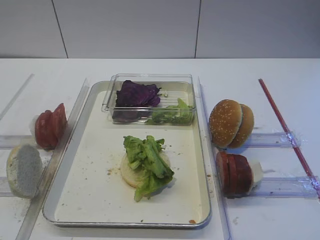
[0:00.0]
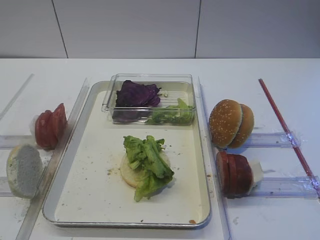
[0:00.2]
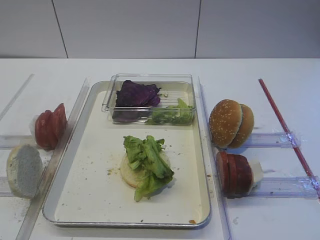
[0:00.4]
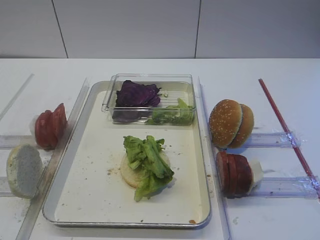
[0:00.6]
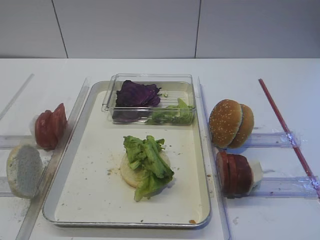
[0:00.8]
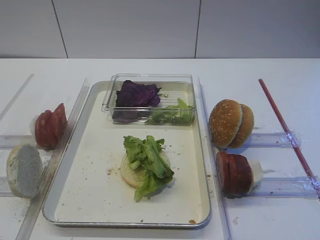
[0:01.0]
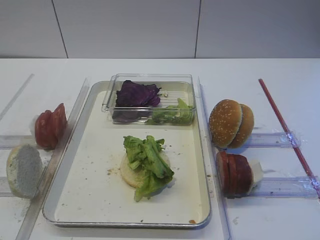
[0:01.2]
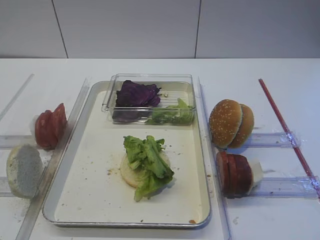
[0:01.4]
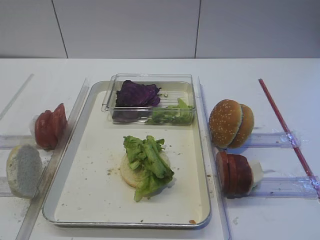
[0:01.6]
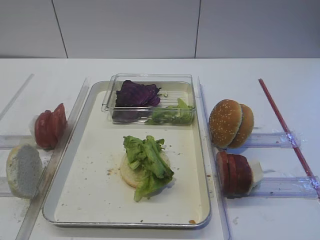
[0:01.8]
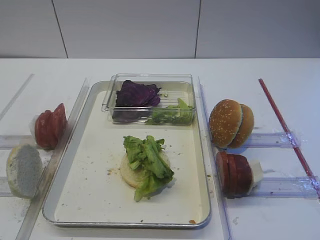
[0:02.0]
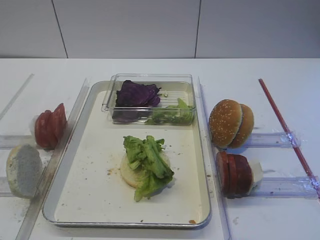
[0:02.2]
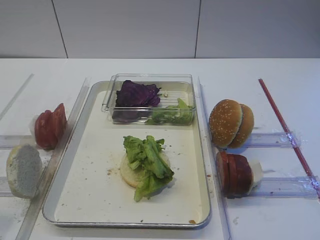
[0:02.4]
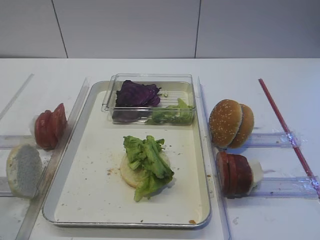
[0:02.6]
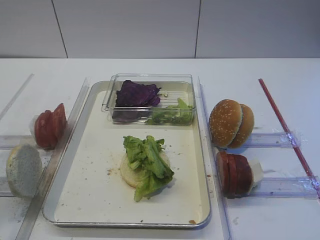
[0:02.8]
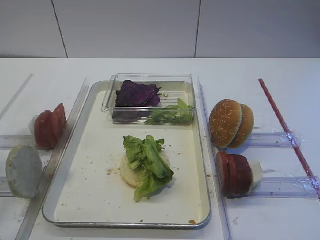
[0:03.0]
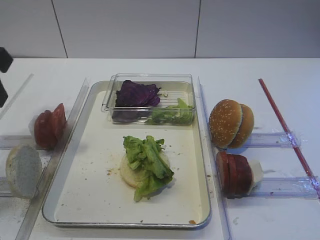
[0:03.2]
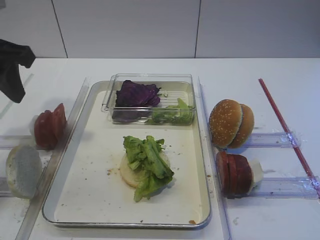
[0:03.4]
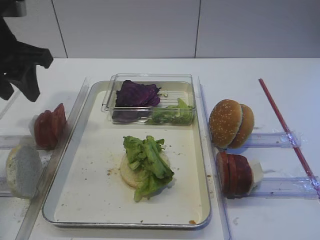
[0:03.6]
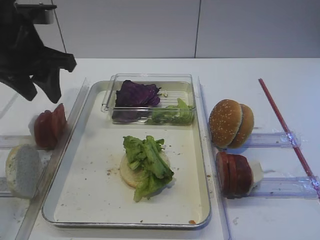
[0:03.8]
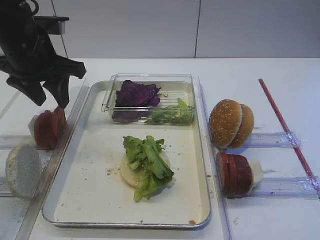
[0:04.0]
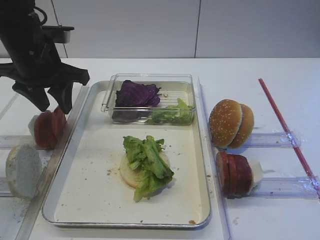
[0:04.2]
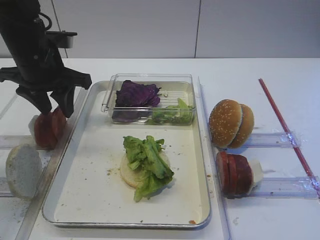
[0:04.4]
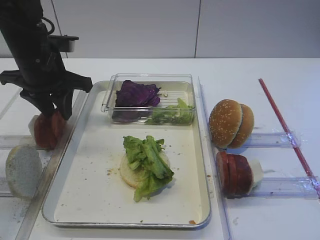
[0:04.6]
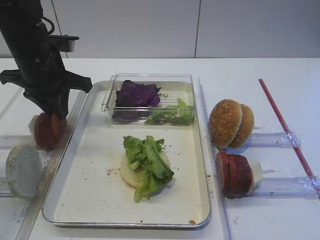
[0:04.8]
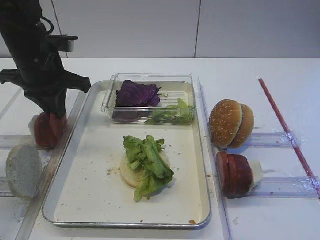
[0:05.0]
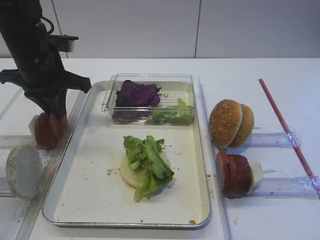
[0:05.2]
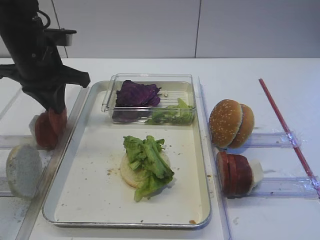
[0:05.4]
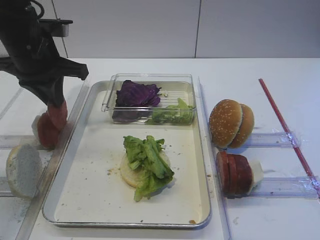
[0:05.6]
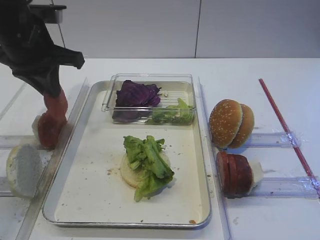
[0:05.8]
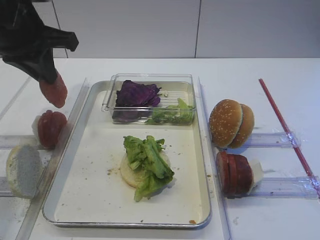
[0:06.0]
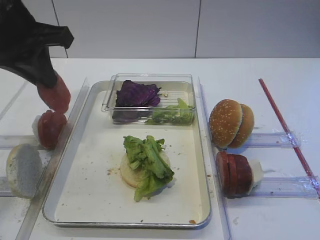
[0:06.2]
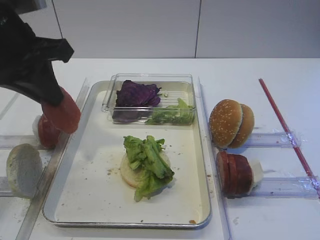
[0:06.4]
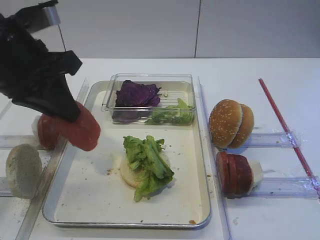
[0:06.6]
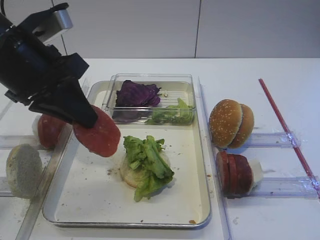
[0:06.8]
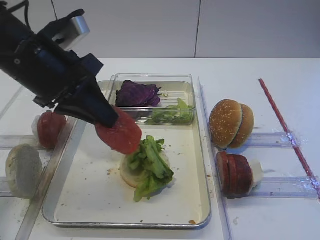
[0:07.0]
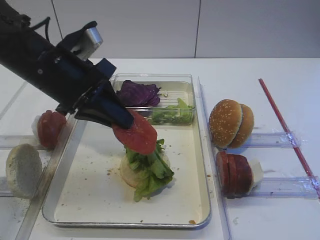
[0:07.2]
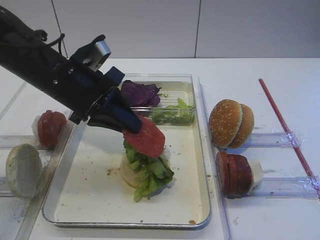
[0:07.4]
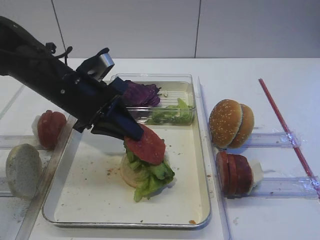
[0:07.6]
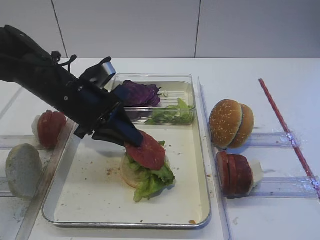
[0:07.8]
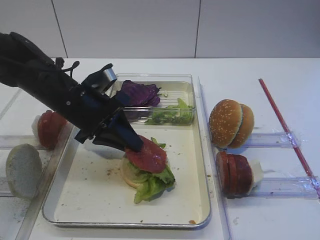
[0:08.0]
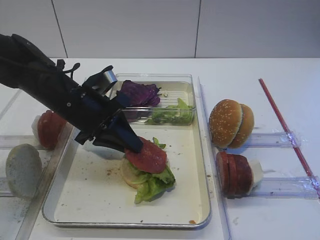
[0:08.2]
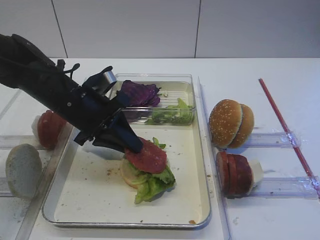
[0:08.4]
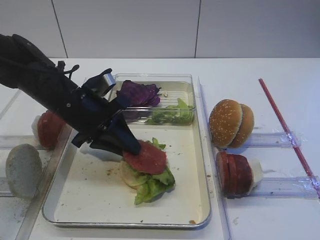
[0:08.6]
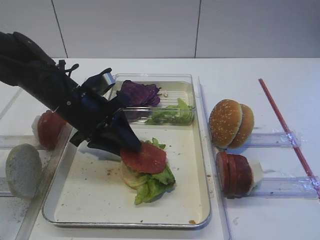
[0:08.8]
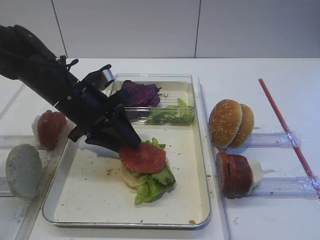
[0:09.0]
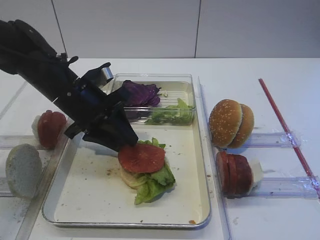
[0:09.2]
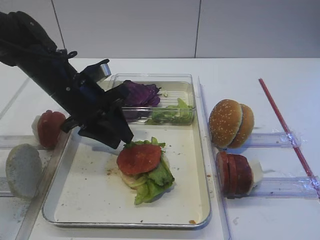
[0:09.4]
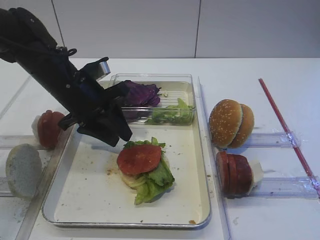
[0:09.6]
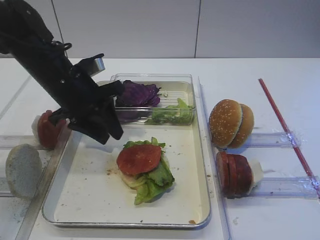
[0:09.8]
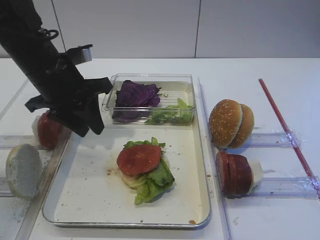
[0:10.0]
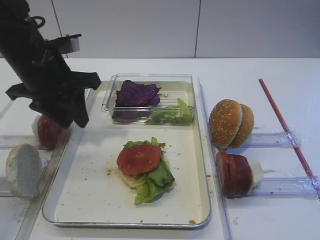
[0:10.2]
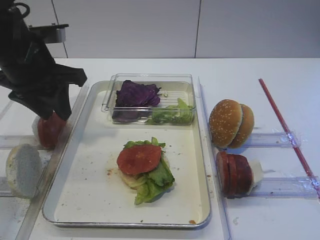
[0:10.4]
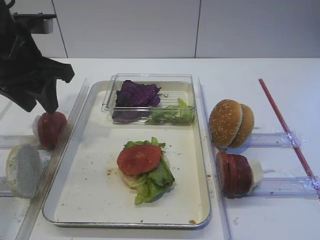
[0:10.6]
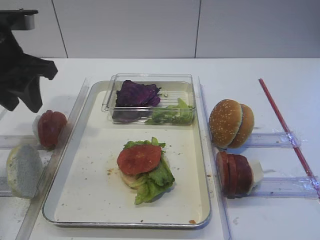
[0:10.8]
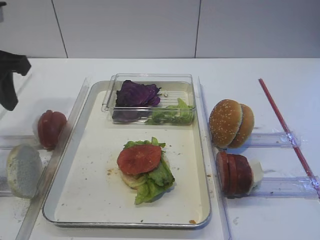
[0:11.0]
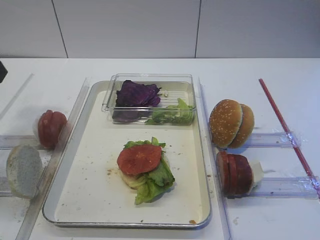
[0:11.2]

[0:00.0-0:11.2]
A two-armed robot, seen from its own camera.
Step, 0:00.0 to 0:05.8: Pick up the tomato slice with the left gripper.
Step, 0:06.0 to 0:09.4: Place the tomato slice on the lettuce leaf with the left gripper.
0:01.6 to 0:03.2: The left gripper heads forward, covering about 20 cm.
0:03.2 to 0:04.8: The left gripper goes some 15 cm forward and downward, and closes up.
0:04.8 to 0:06.4: The left gripper heads backward and upward, covering about 10 cm, and closes.
0:06.4 to 0:08.0: The left gripper moves downward and to the right, approximately 15 cm.
0:08.0 to 0:09.6: The left gripper opens its fingers.
0:09.6 to 0:11.2: The left gripper goes some 20 cm to the left, upward and backward.

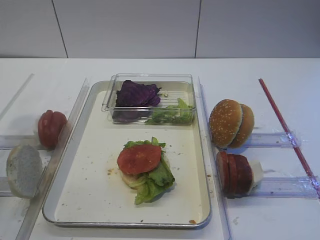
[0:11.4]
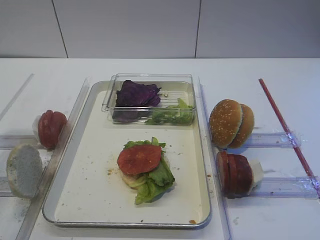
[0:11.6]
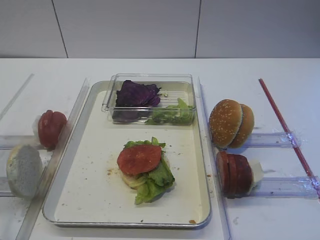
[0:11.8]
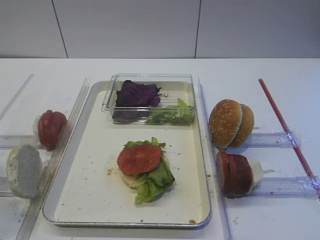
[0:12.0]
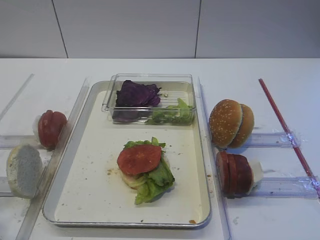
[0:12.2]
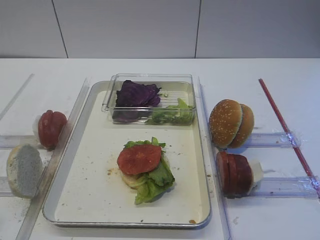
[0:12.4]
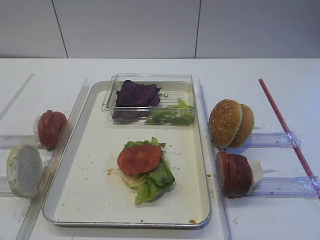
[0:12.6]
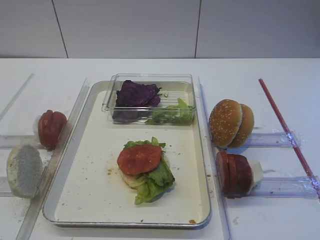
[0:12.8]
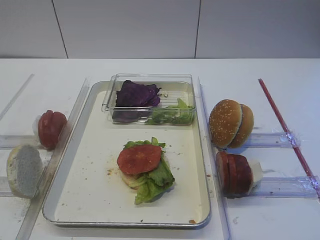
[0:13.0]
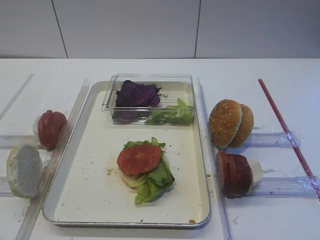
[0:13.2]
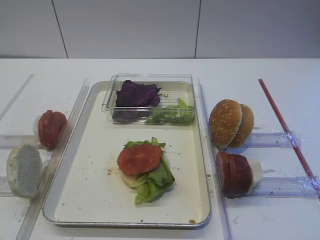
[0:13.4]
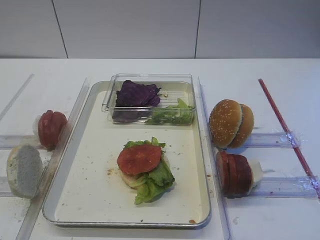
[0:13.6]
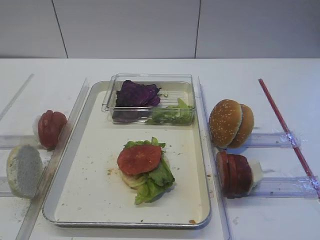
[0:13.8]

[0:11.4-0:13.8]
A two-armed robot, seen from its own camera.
0:11.4 to 0:12.6: The left gripper travels backward by some 20 cm.

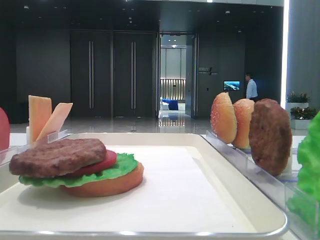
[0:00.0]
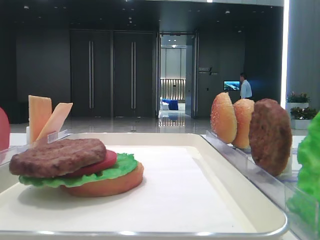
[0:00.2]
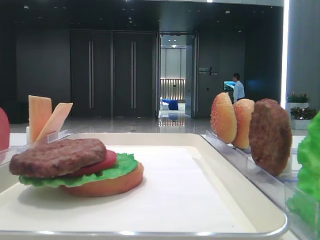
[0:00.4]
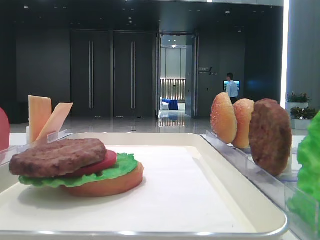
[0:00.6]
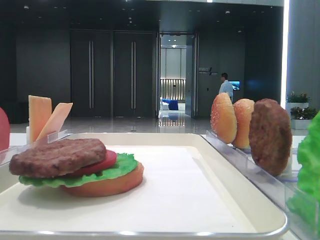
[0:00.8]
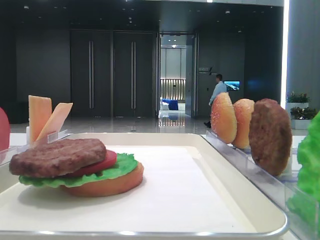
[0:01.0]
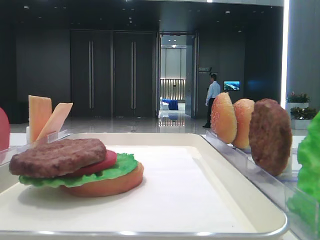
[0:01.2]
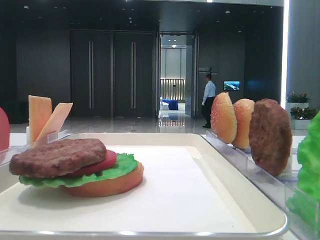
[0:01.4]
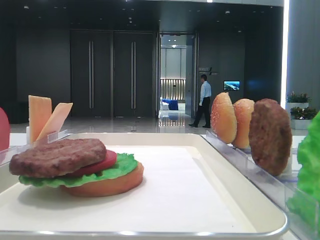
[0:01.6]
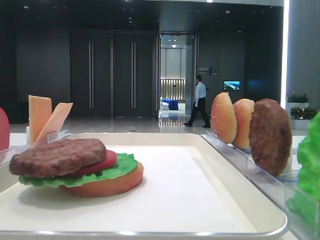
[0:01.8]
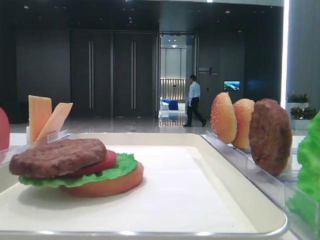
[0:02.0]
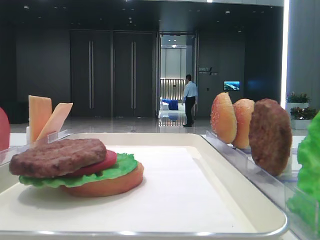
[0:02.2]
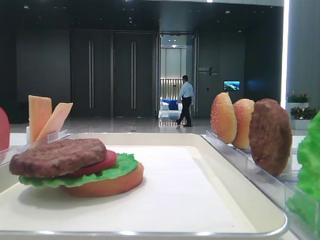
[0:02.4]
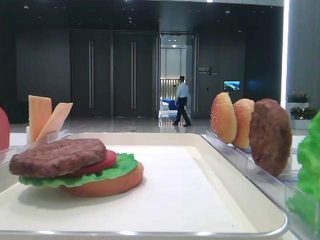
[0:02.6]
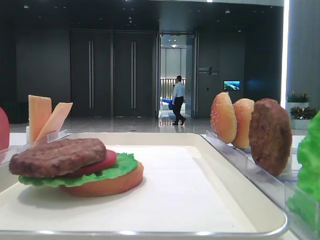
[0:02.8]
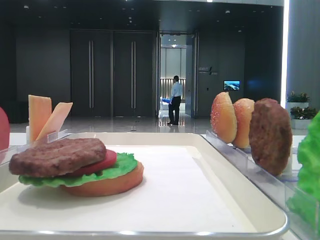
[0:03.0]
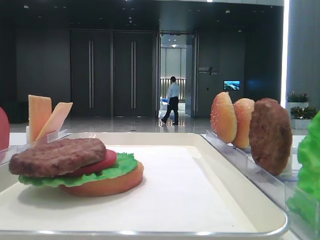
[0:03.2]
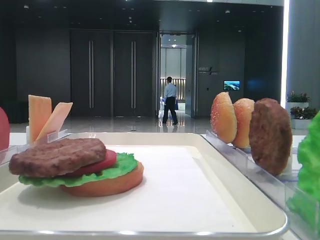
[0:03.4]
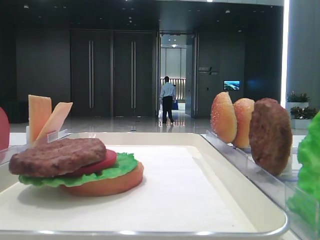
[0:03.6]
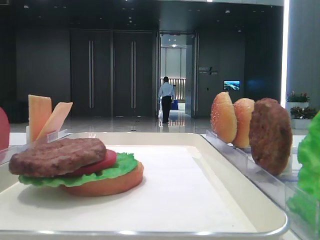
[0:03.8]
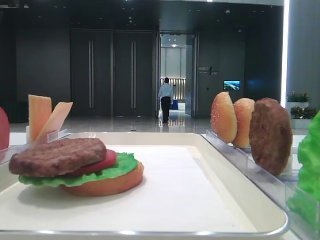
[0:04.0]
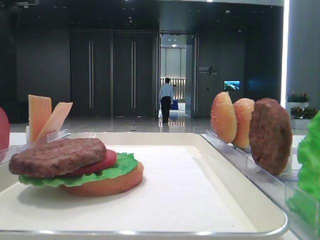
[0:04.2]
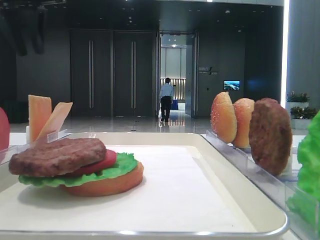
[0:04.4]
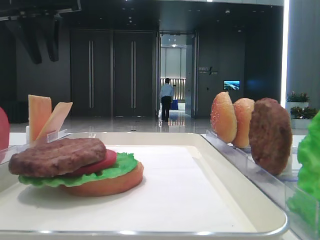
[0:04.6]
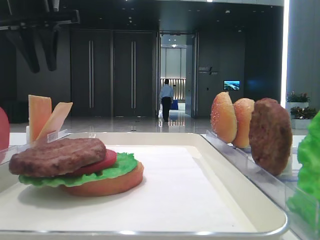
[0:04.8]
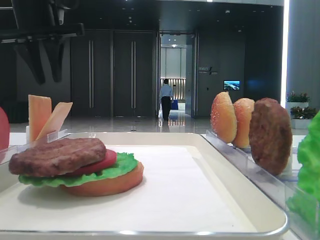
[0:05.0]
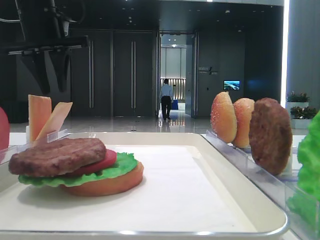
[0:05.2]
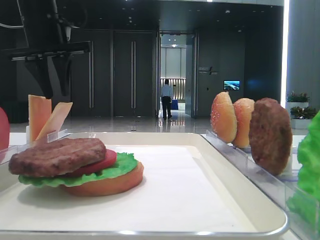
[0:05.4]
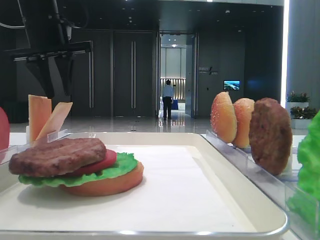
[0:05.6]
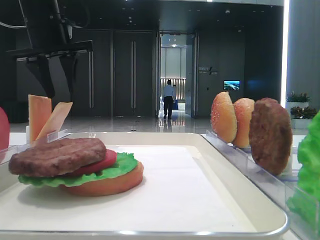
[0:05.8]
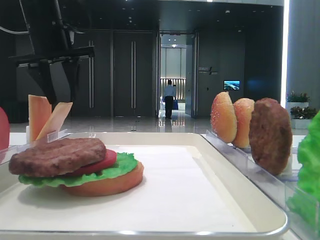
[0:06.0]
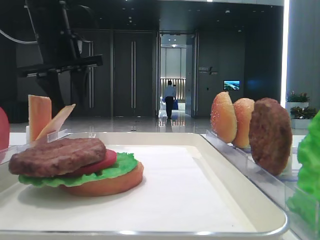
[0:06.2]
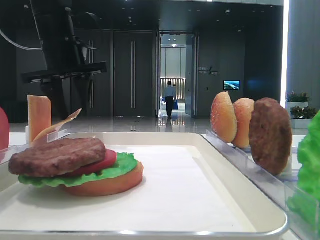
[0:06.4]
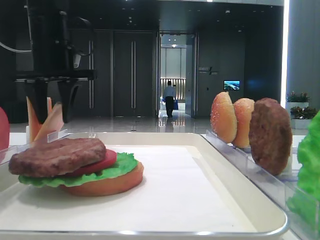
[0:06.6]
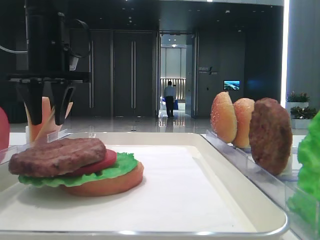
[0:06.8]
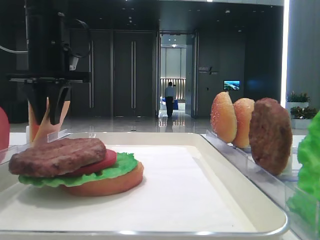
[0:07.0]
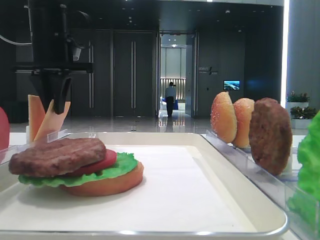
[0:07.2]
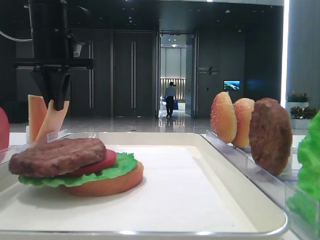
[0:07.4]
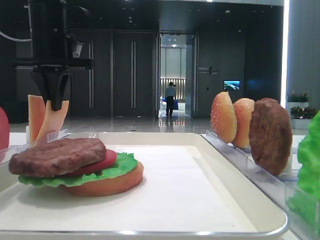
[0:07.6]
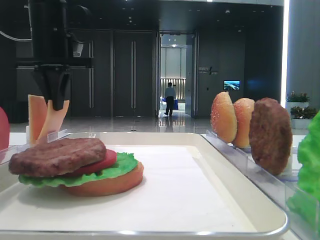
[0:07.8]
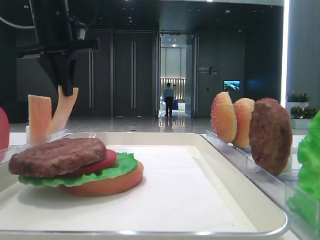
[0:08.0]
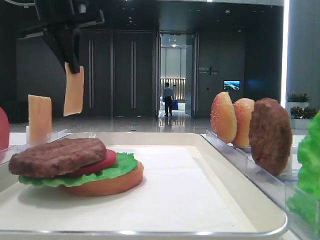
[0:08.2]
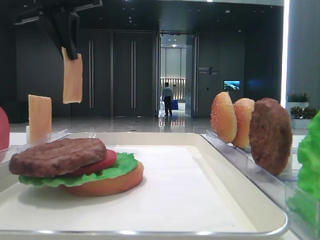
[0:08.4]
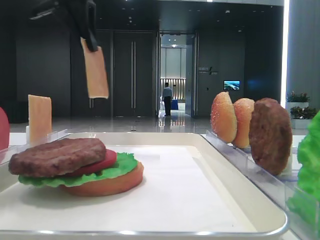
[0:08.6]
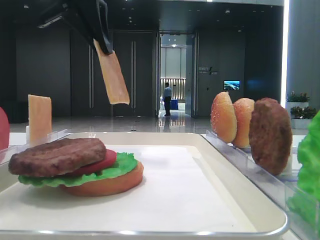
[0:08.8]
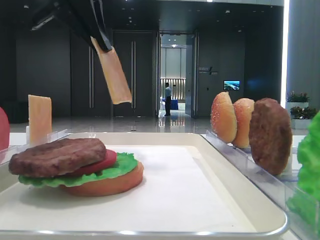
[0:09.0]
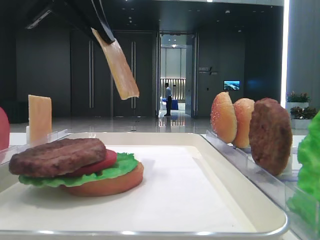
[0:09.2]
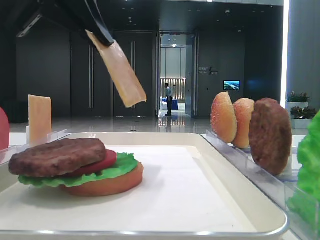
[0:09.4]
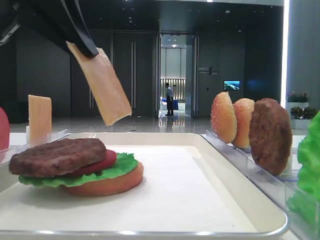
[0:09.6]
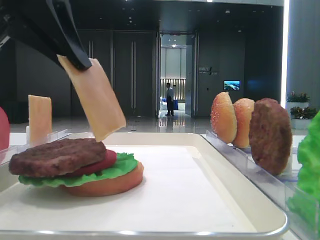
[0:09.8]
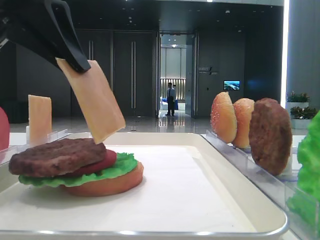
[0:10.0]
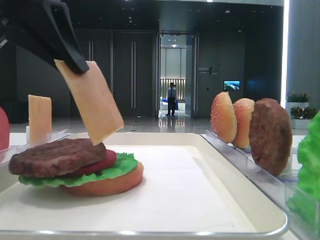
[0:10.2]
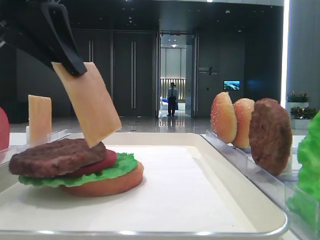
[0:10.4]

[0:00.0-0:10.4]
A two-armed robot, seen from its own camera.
Step, 0:00.0 to 0:07.4: Pick up the cheese slice with the left hand.
0:01.4 to 0:03.0: The left gripper travels forward by some 25 cm.
0:03.0 to 0:04.4: The left gripper goes approximately 20 cm forward and to the right.
0:04.4 to 0:06.0: The left gripper goes roughly 5 cm downward.
0:06.0 to 0:07.4: The left gripper closes its fingers.
0:07.4 to 0:09.0: The left gripper is displaced backward and upward by about 15 cm.
0:09.0 to 0:10.4: The left gripper shifts some 10 cm backward and downward.
